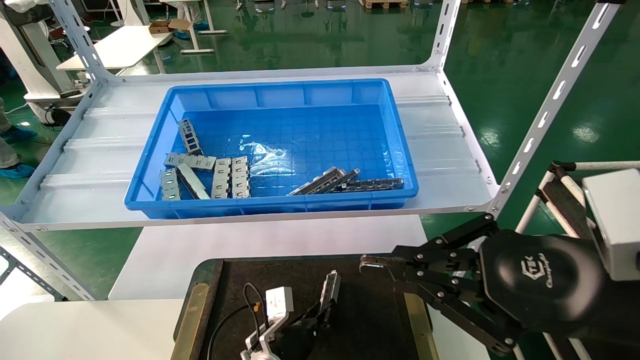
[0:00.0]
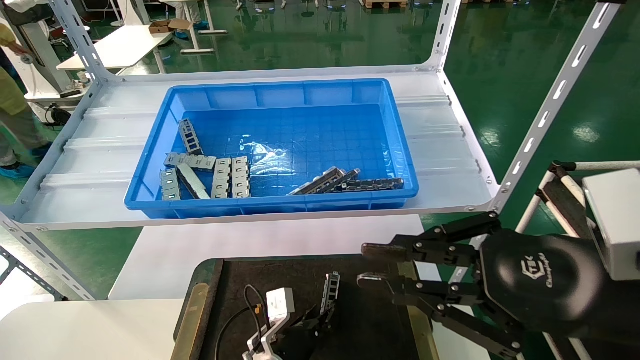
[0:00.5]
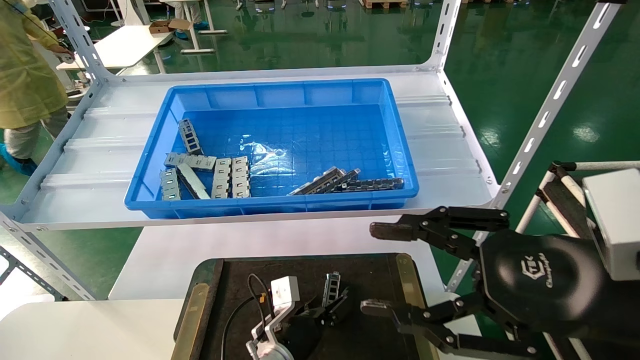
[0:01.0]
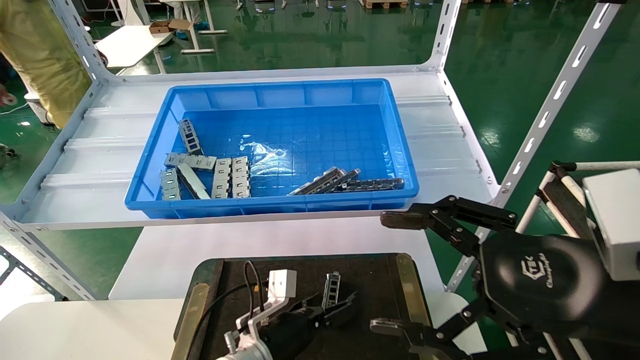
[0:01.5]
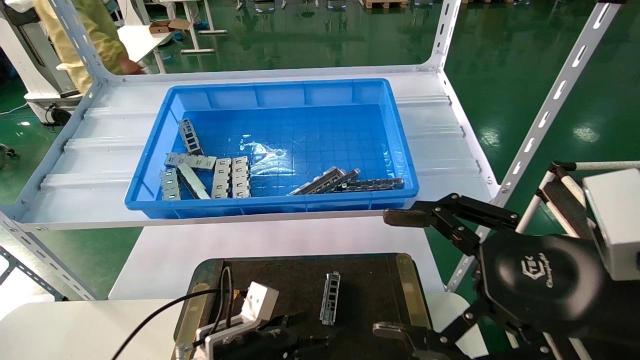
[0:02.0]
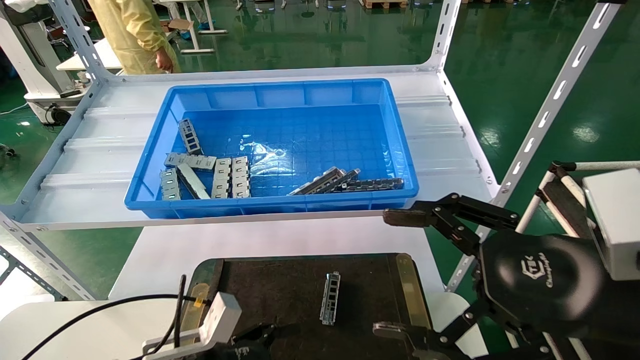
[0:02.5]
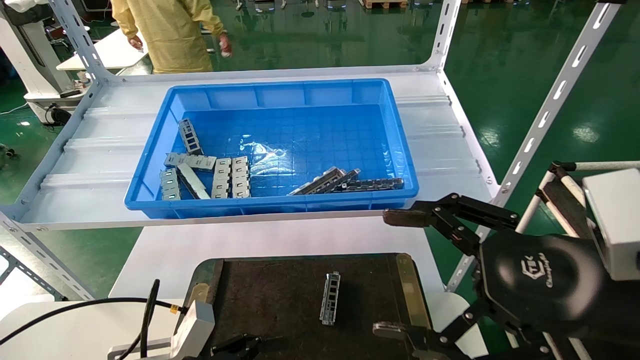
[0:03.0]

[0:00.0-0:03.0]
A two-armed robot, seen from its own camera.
Task of the whole recording: Grasp the part with one hand and place it on the black container.
0:00.0 to 0:01.5: The left gripper shifts about 5 cm upward, and opens. The right gripper opens up.
0:01.5 to 0:03.0: The left gripper moves to the left, backward and upward, approximately 20 cm.
